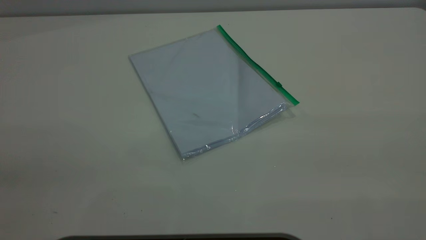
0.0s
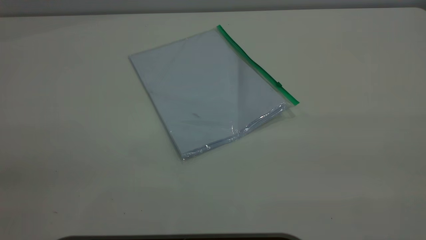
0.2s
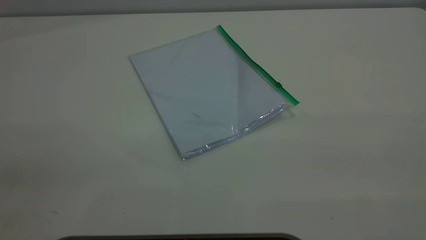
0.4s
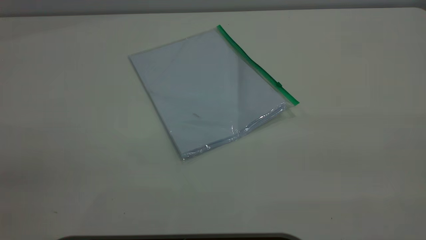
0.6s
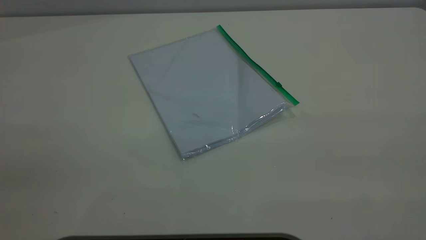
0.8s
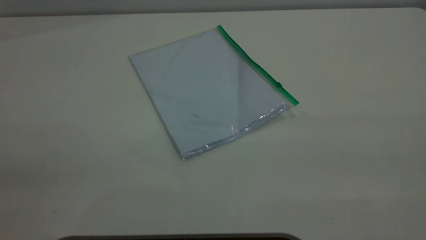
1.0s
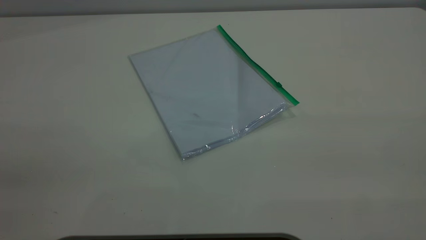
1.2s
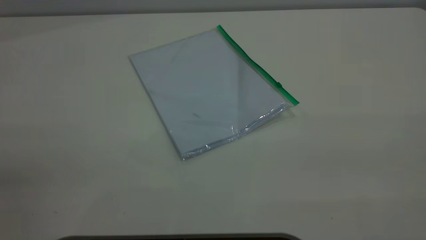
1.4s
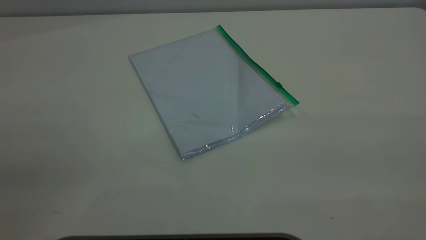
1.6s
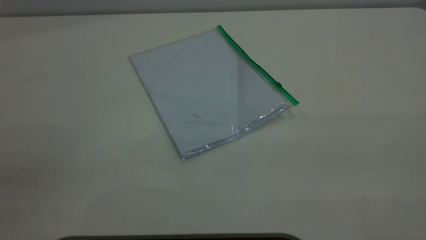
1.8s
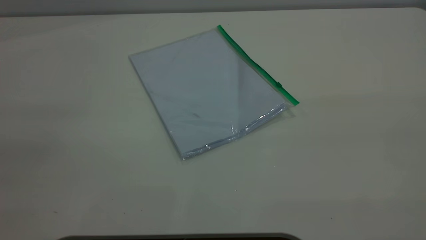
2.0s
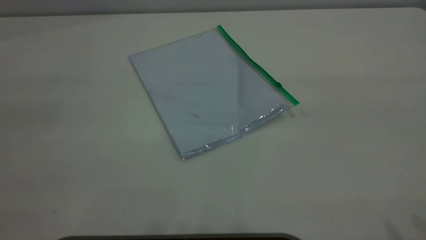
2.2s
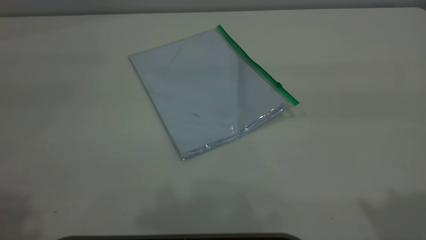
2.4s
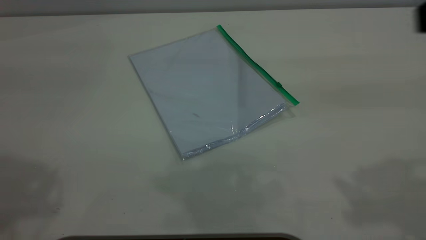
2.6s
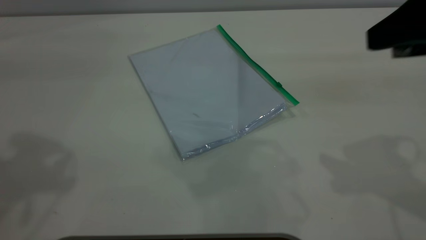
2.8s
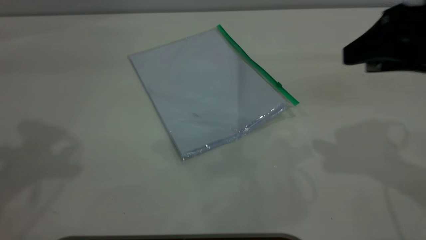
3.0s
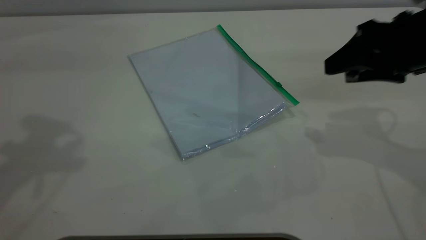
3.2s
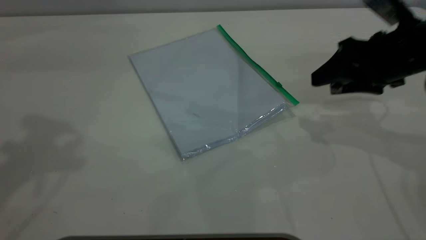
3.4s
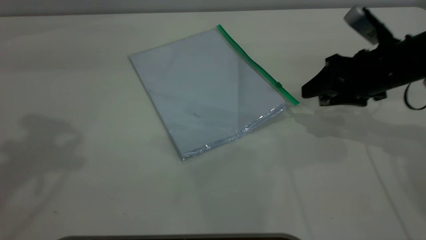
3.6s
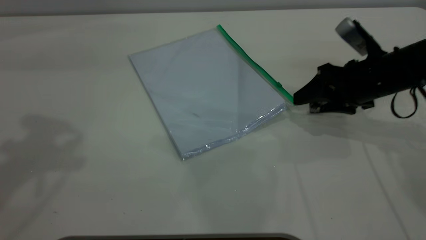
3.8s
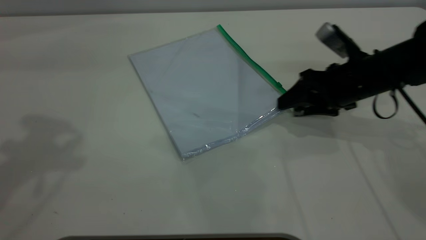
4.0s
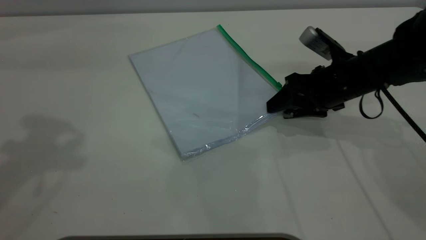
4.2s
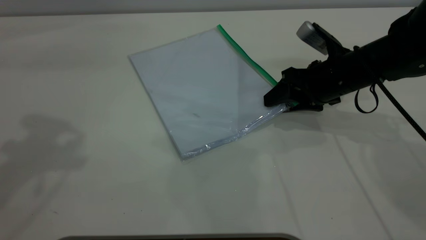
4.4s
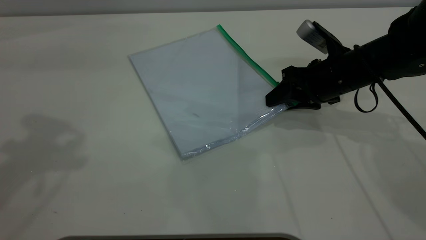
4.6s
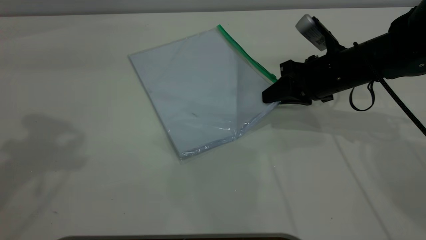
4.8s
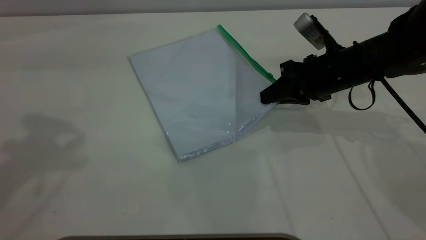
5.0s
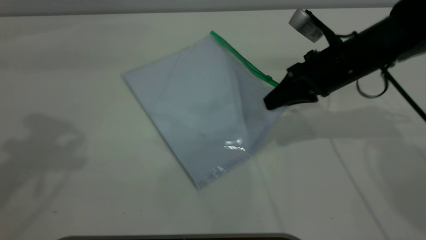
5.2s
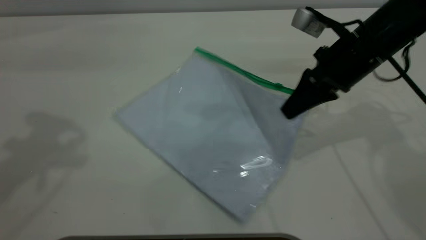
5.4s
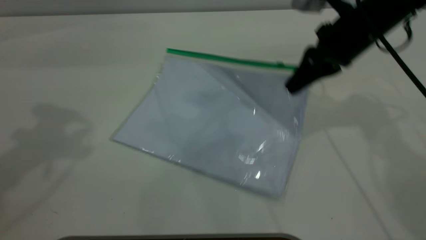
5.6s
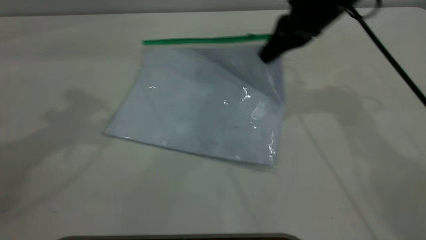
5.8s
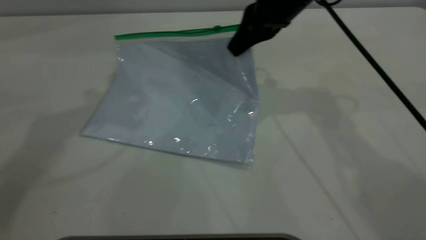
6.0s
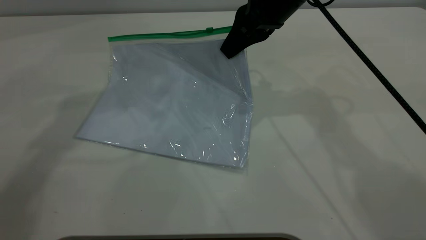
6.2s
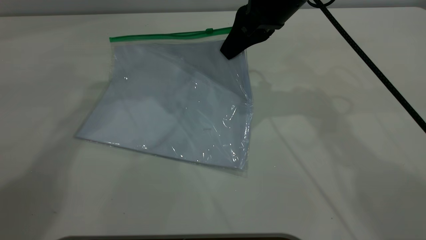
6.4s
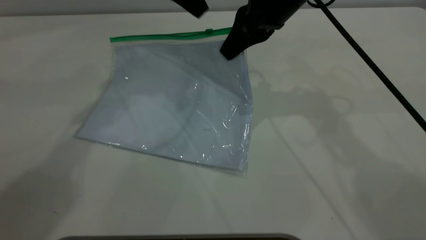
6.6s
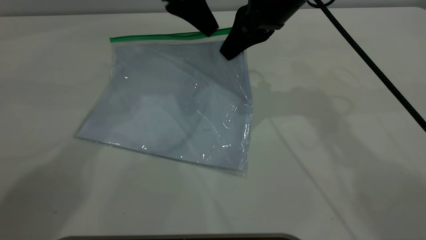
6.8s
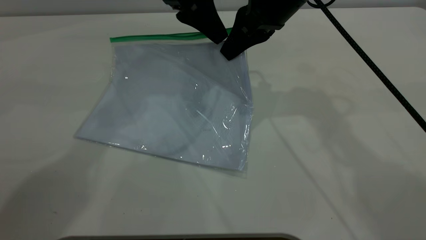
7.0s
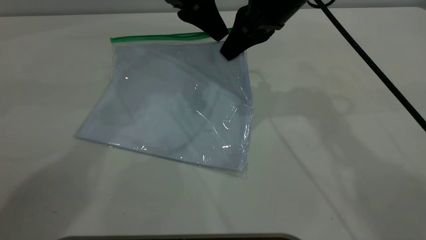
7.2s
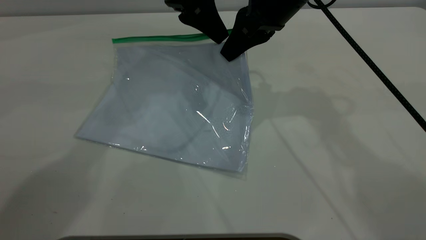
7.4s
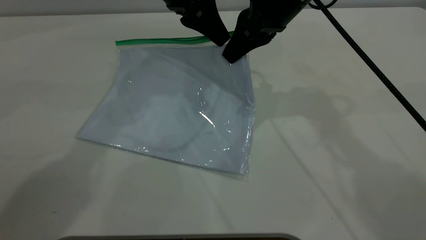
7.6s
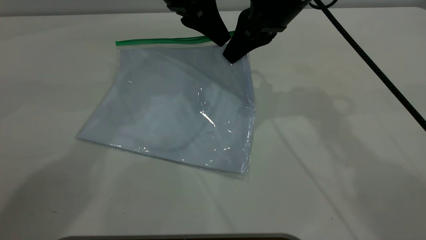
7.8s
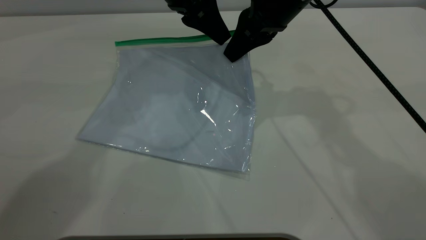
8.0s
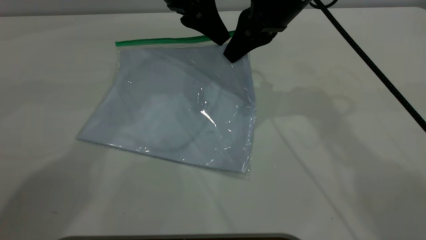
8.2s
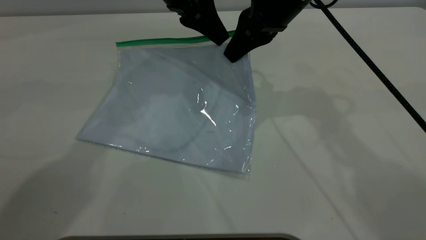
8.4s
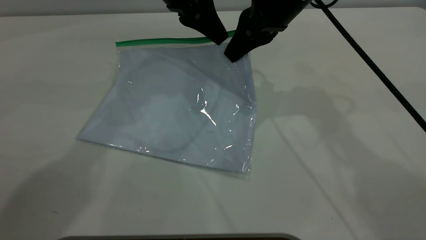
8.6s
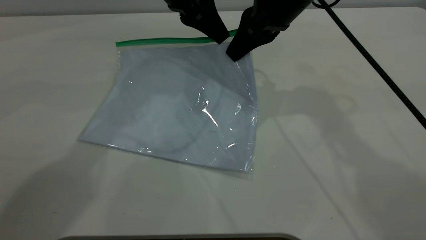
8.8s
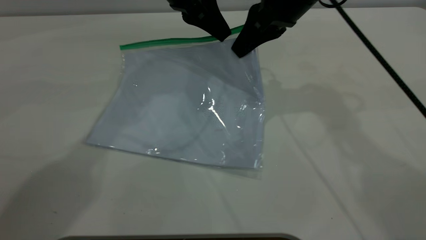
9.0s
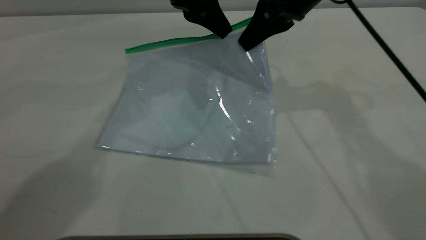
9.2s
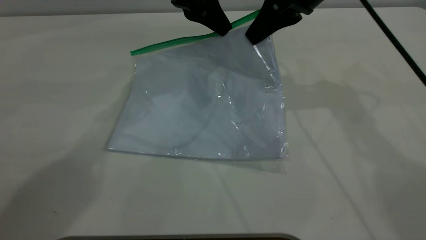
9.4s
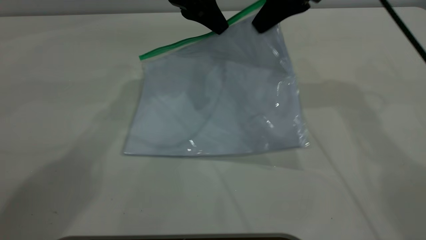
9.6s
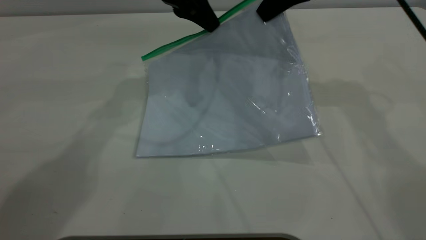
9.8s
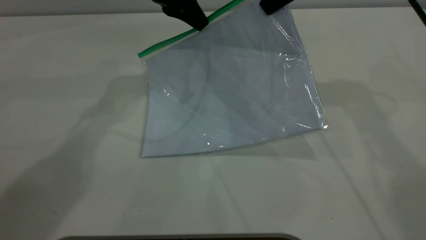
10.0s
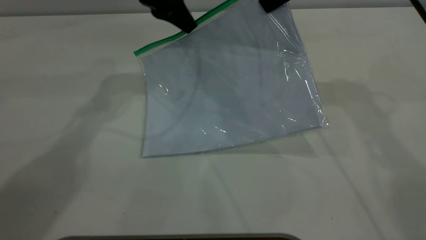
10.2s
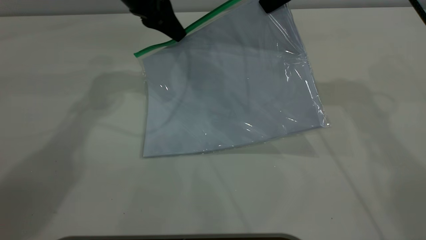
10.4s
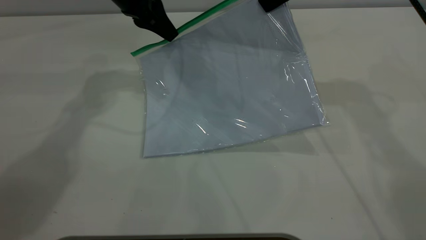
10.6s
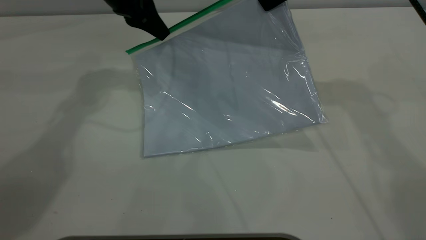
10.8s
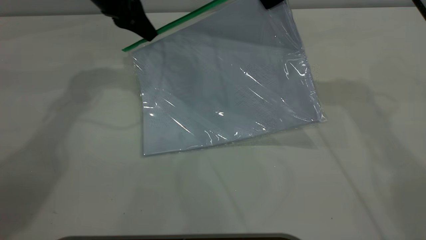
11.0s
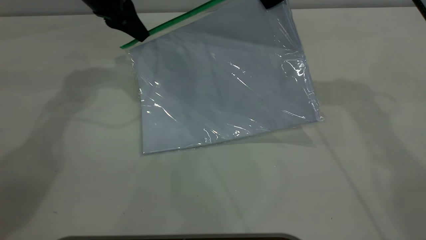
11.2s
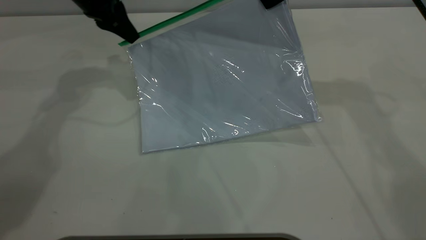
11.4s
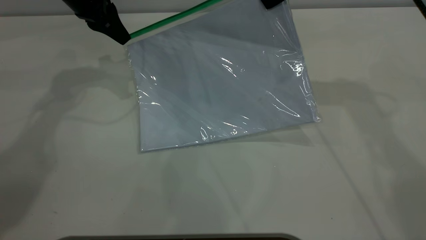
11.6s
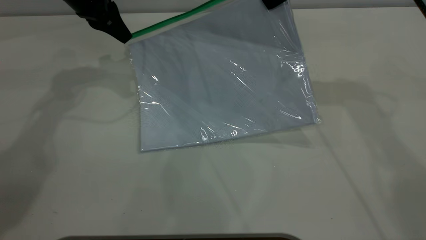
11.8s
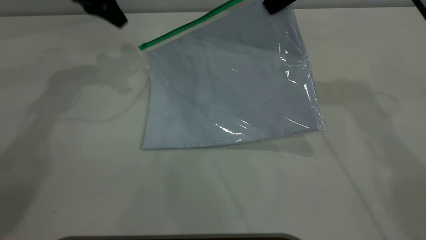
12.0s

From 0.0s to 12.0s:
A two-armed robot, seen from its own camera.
Step, from 0.0s to 4.8s: Pick up the transparent plastic bag with the right gripper.
Step, from 5.2s to 11.8s: Pulling up the zipper on the transparent plastic bag with the left gripper to close it.
From 0.0s to 1.6s: The two grippers keep their place.
From 1.6s to 3.0s: The right gripper travels forward and downward by about 30 cm.
From 3.0s to 4.4s: The right gripper goes roughly 20 cm downward, forward and to the left.
From 4.4s to 6.0s: The right gripper heads upward and to the left, covering roughly 15 cm, and closes its fingers. The left gripper shifts roughly 15 cm forward and to the right.
From 6.0s to 7.6s: The left gripper shifts roughly 15 cm to the right, downward and forward.
From 7.6s to 9.0s: The left gripper closes its fingers.
From 9.0s to 10.4s: The left gripper shifts about 5 cm to the left; the right gripper shifts some 5 cm upward.
From 10.4s to 12.0s: The left gripper goes about 10 cm to the left, and opens its fingers.

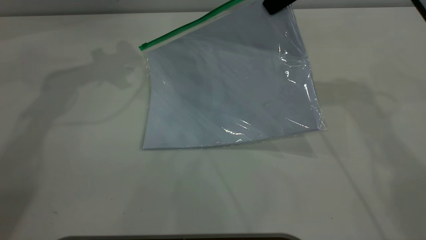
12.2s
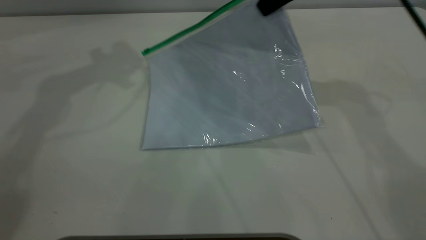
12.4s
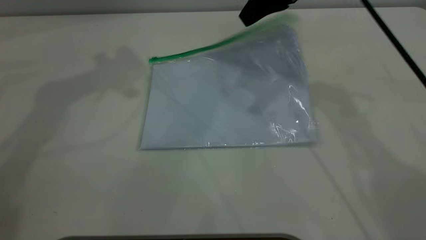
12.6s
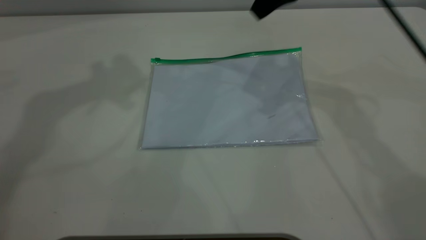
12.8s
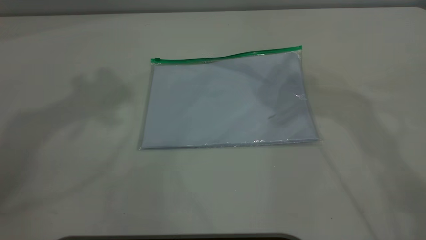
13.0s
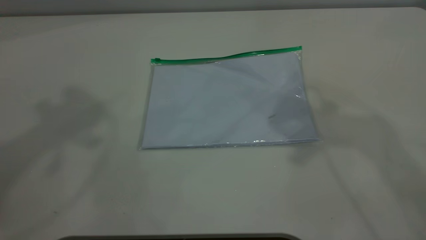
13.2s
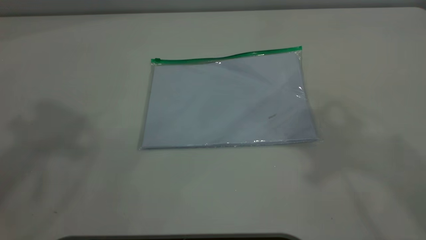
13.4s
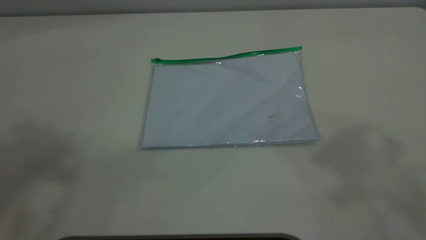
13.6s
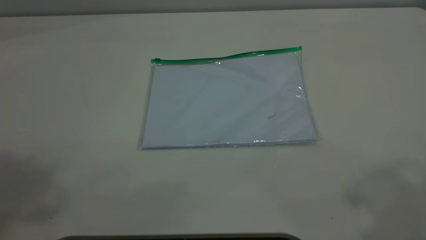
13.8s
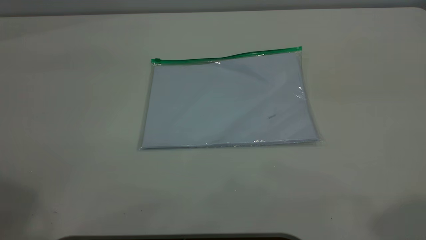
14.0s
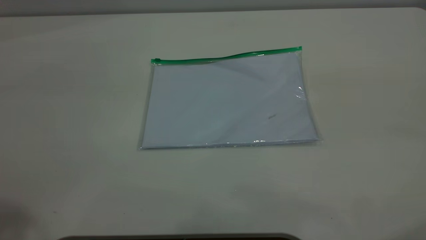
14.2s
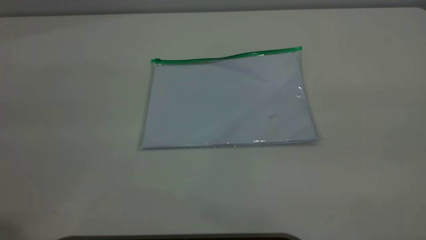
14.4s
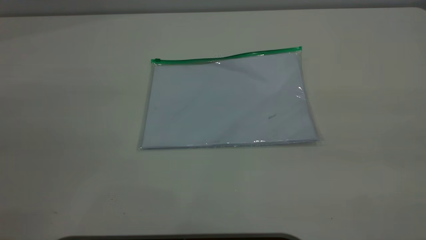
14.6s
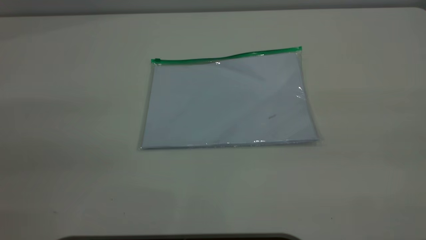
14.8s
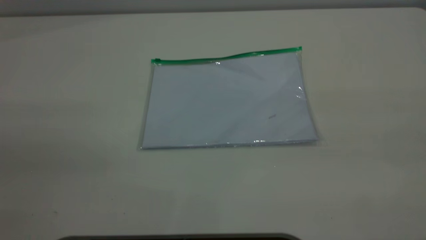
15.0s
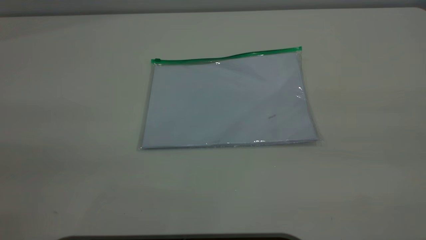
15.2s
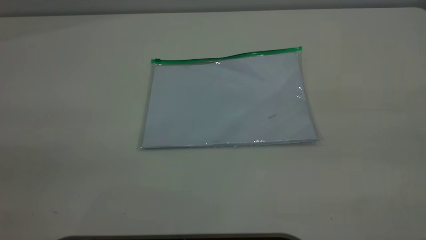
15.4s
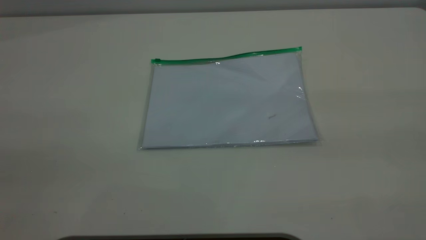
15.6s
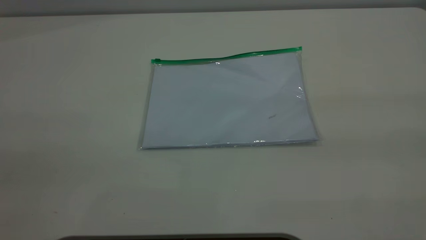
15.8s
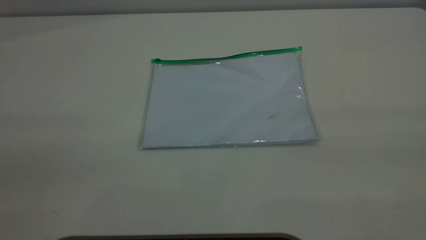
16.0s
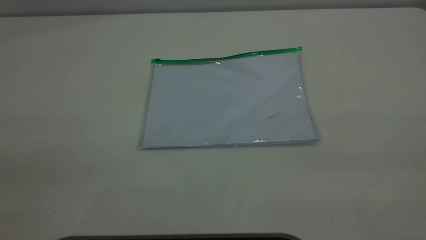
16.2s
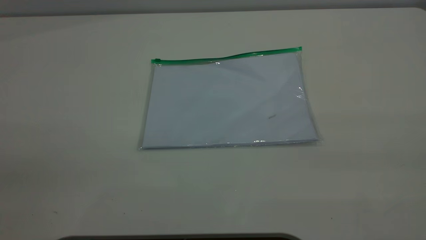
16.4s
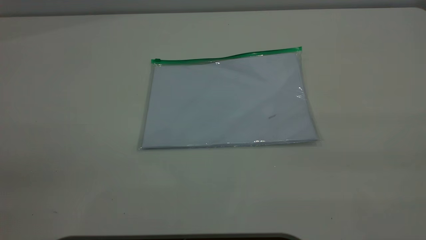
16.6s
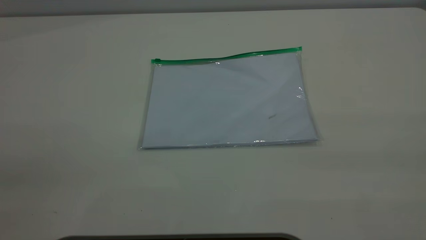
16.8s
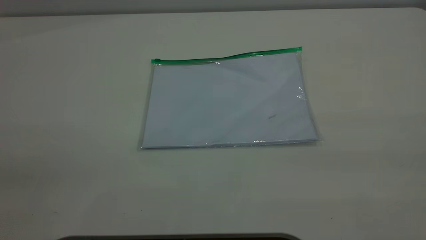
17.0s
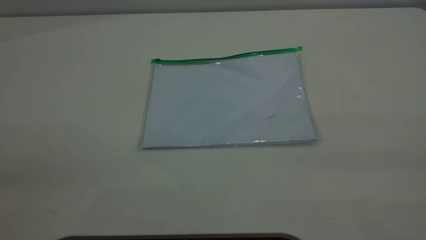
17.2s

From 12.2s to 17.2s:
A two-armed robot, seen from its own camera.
Step, from 12.2s to 12.6s: Place the transparent plastic bag.
From 12.2s to 13.8s: The grippers both shift backward and upward by approximately 40 cm. The right gripper opens up.
